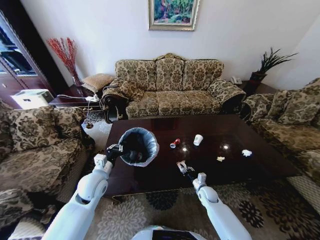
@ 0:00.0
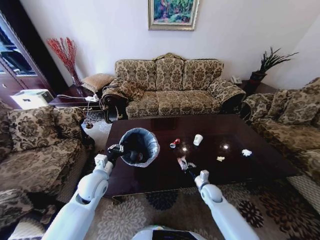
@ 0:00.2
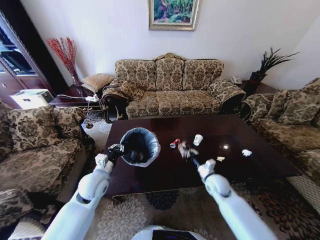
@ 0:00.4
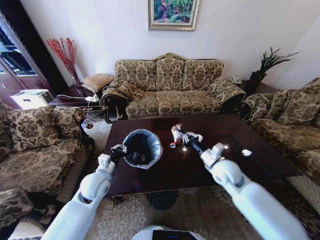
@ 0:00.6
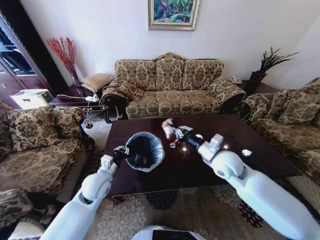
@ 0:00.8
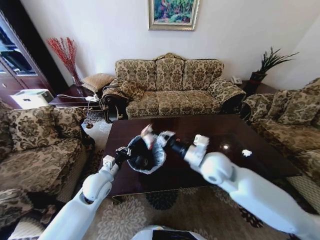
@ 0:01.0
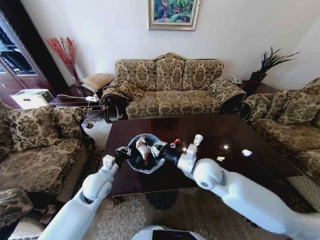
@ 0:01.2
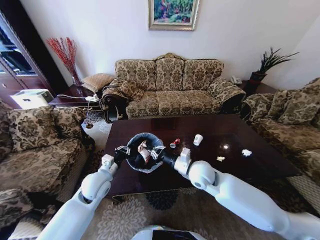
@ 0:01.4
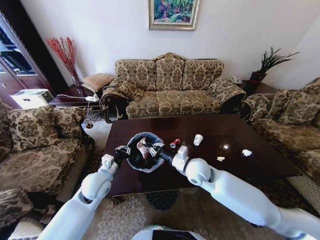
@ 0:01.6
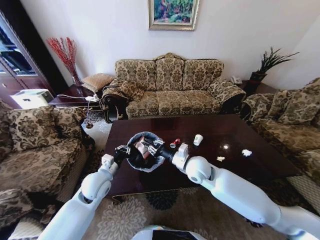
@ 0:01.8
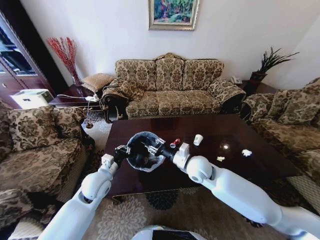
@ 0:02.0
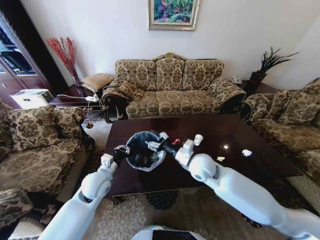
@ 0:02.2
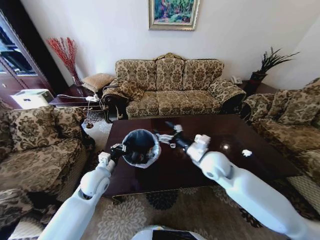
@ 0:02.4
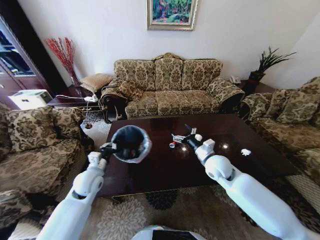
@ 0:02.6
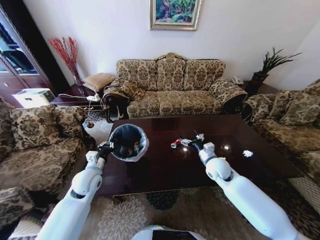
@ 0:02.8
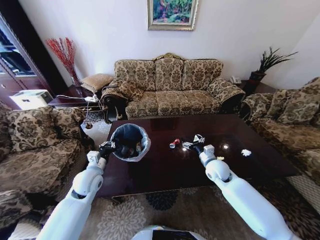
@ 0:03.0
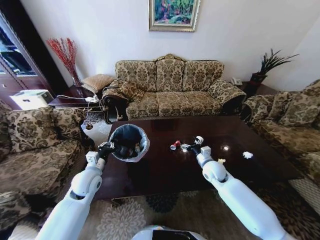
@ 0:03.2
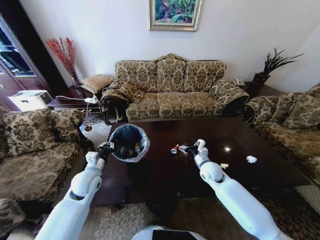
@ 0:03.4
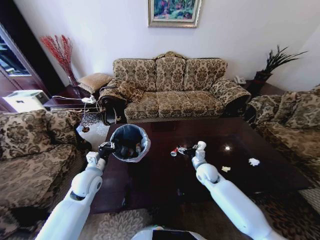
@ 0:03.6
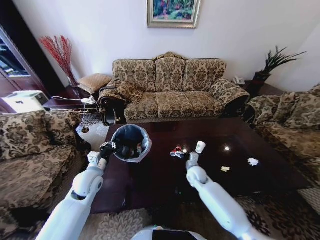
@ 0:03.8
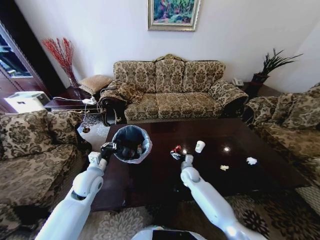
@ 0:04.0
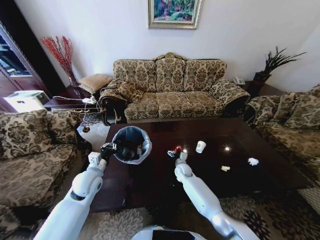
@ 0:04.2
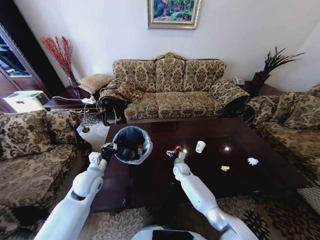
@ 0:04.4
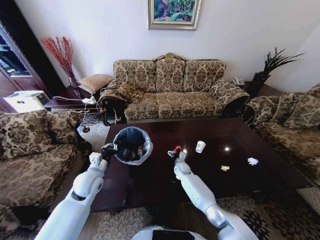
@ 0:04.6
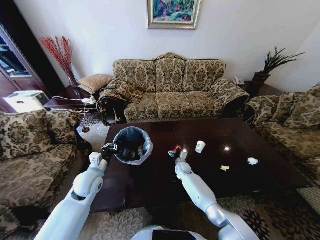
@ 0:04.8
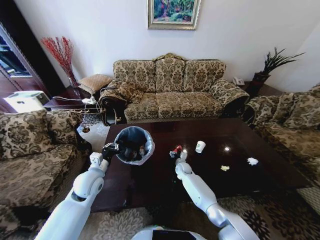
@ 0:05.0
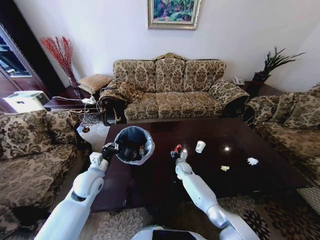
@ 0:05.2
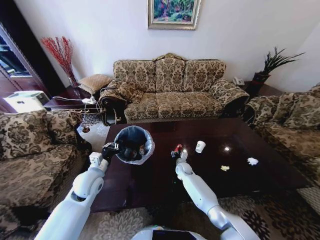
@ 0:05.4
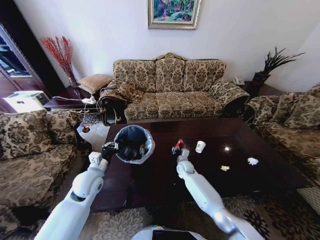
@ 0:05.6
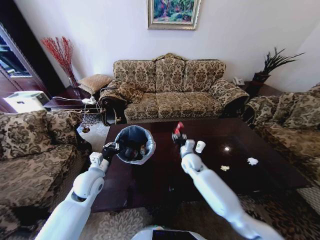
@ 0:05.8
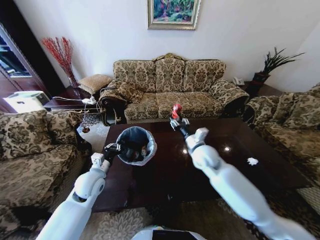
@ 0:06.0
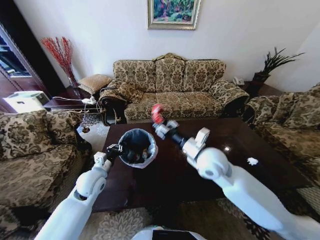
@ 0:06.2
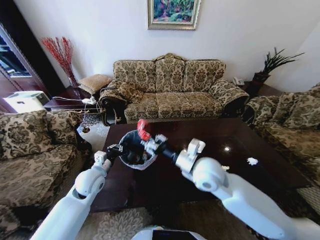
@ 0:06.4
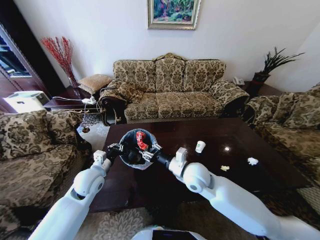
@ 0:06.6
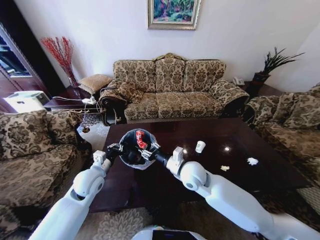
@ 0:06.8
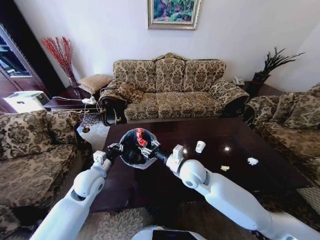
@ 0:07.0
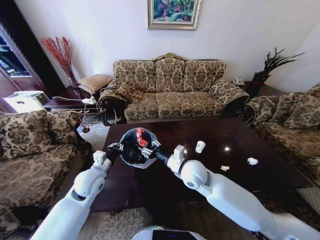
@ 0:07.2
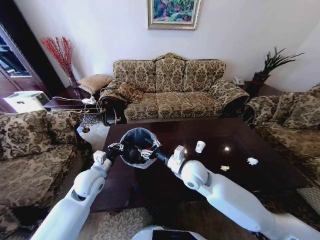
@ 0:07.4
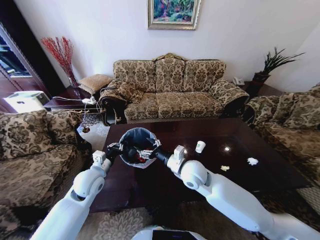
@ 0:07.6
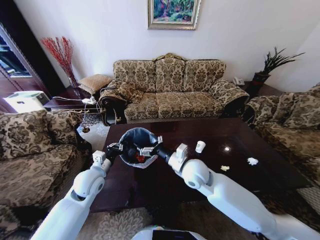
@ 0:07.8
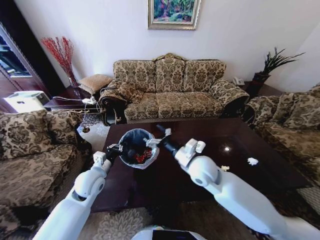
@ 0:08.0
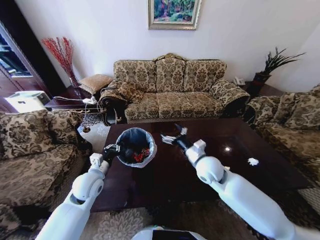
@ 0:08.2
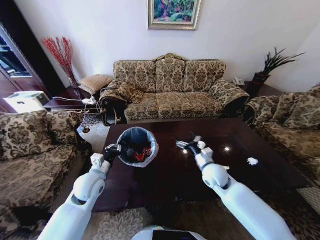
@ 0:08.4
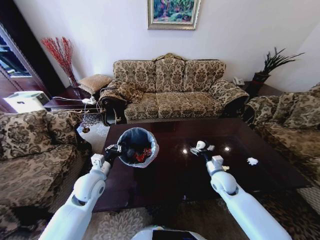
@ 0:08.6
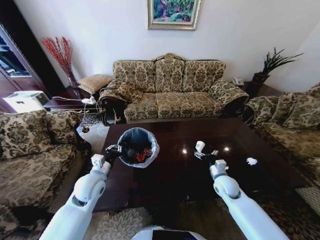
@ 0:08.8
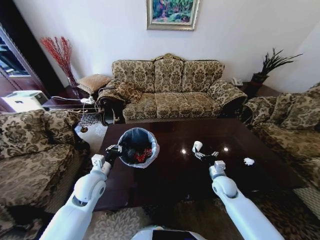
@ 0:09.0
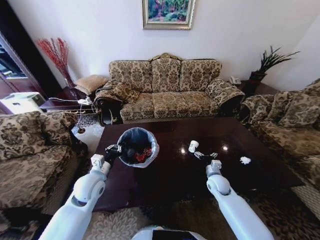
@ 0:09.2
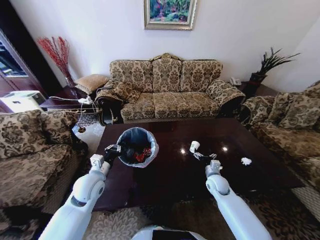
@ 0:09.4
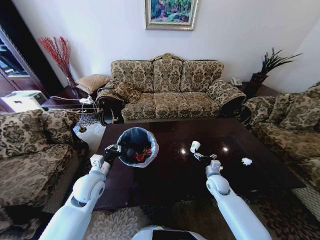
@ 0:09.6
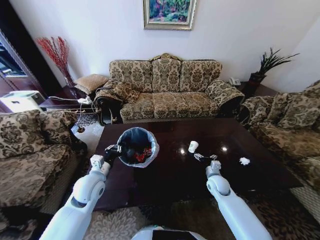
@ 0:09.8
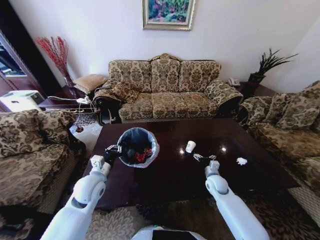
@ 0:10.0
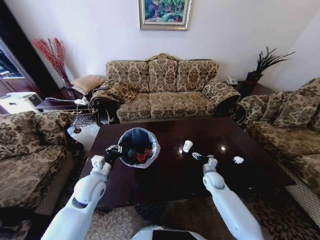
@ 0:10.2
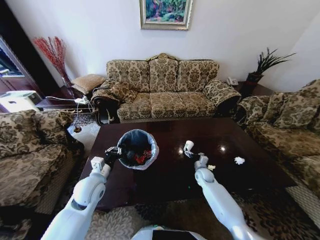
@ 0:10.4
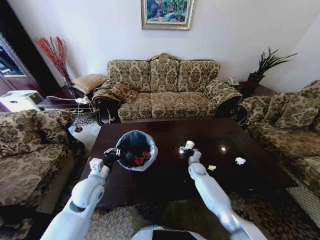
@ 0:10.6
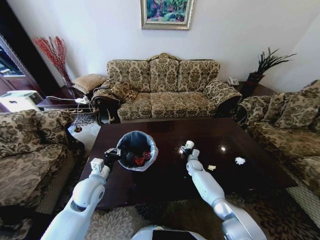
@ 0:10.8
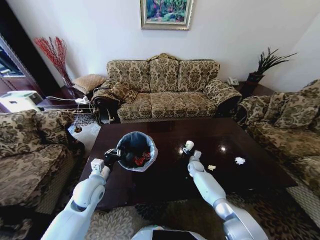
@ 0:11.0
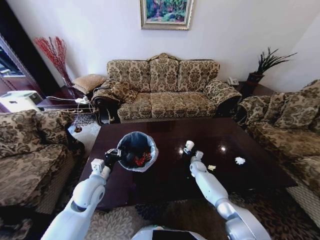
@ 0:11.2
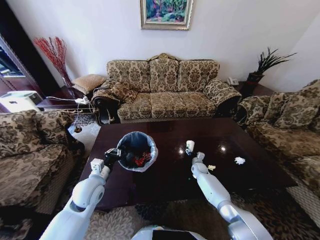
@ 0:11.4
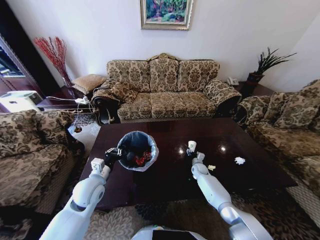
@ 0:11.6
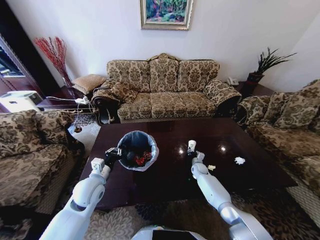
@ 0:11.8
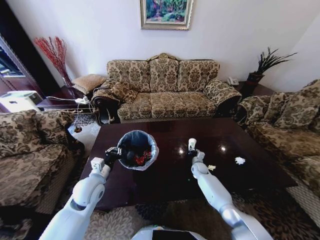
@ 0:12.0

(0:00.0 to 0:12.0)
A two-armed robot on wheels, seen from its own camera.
Task of the whole recording: Move to the front of the table and place the trash on the table into the trash bin.
0:00.0 - 0:01.6: The right gripper heads upward and to the left, covering approximately 30 cm.
0:01.6 - 0:03.0: The right gripper heads to the right and downward, covering roughly 15 cm, and opens its fingers.
0:03.0 - 0:04.4: The right gripper is displaced downward, to the left and forward by about 25 cm.
0:04.4 - 0:06.0: The right gripper moves upward, roughly 30 cm, and closes up.
0:06.0 - 0:07.6: The right gripper shifts about 10 cm to the left and backward, and opens up.
0:07.6 - 0:09.0: The right gripper travels to the right and downward by about 25 cm.
0:09.0 - 0:10.4: The right gripper is displaced forward and downward by roughly 10 cm.
0:10.4 - 0:12.0: The right gripper heads forward, covering about 5 cm, and closes up.

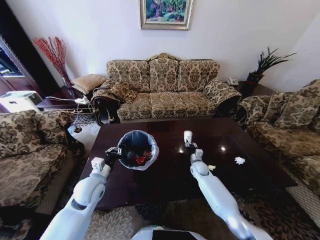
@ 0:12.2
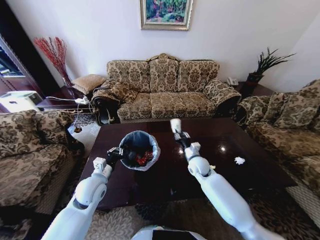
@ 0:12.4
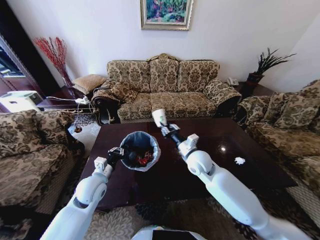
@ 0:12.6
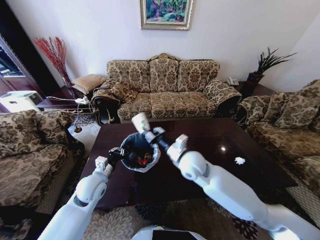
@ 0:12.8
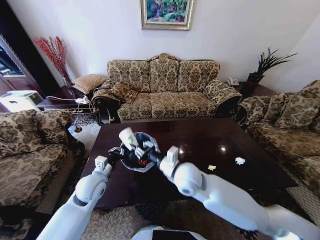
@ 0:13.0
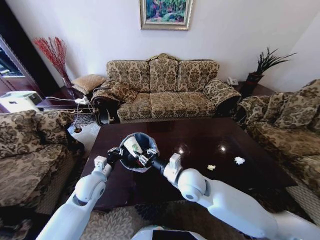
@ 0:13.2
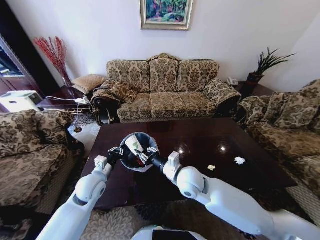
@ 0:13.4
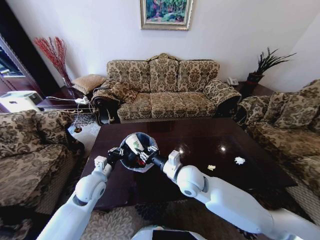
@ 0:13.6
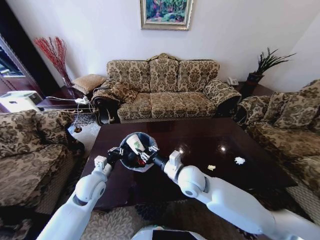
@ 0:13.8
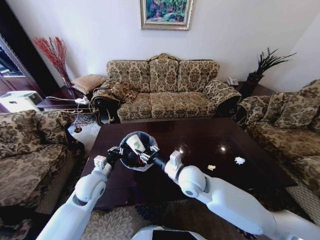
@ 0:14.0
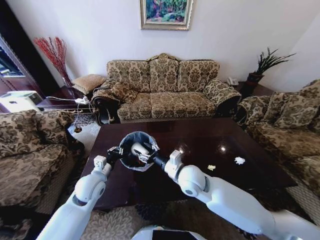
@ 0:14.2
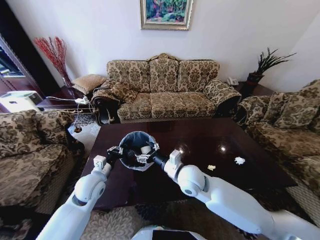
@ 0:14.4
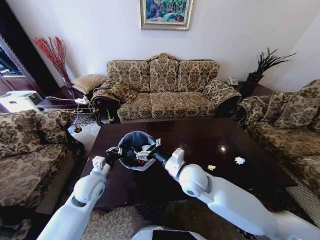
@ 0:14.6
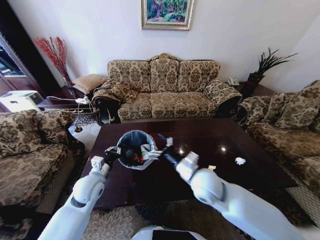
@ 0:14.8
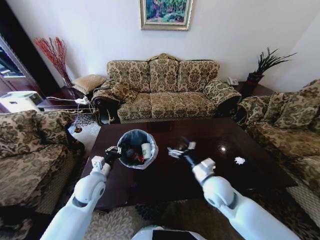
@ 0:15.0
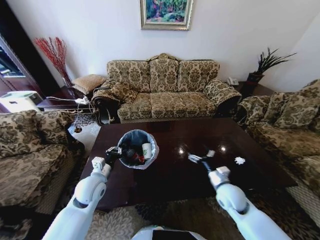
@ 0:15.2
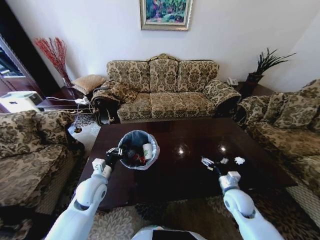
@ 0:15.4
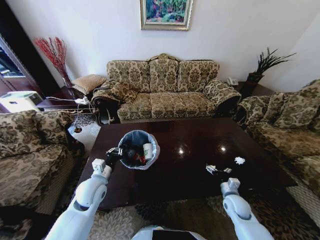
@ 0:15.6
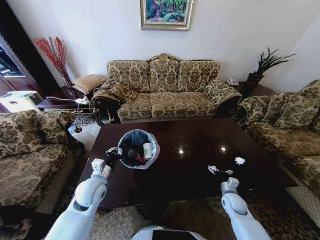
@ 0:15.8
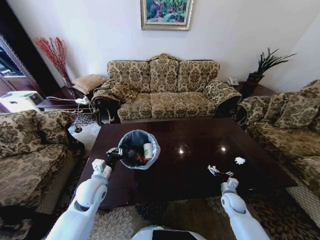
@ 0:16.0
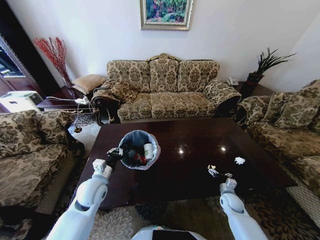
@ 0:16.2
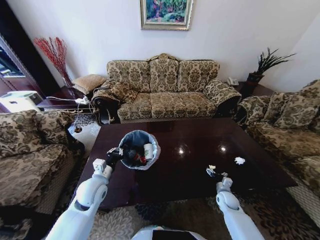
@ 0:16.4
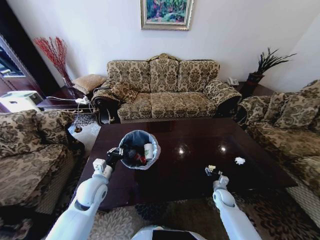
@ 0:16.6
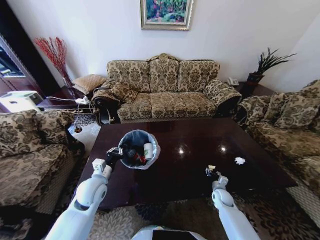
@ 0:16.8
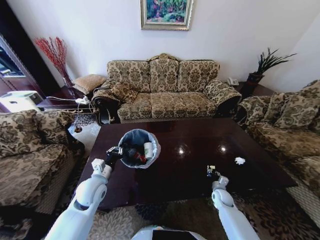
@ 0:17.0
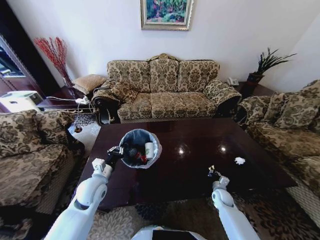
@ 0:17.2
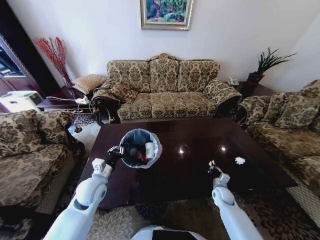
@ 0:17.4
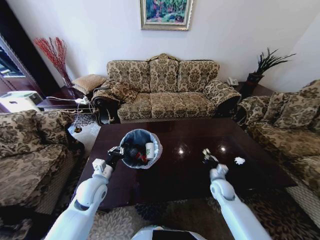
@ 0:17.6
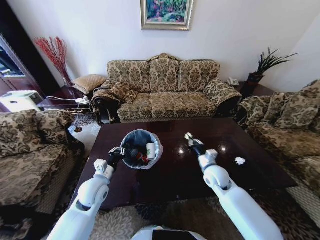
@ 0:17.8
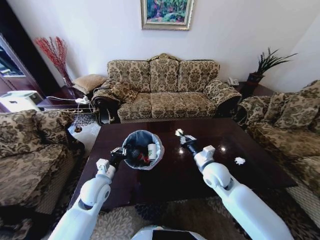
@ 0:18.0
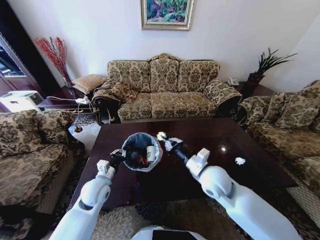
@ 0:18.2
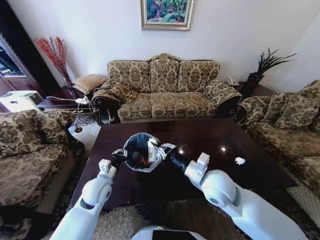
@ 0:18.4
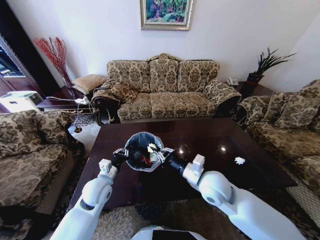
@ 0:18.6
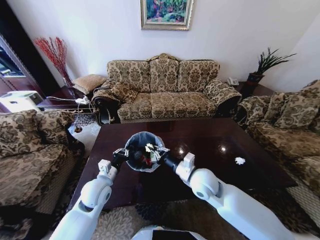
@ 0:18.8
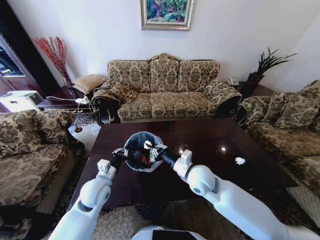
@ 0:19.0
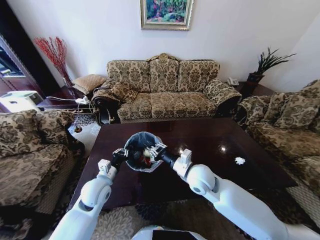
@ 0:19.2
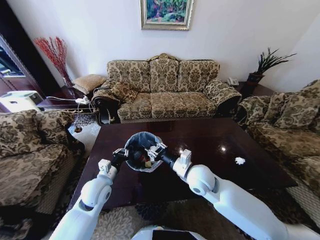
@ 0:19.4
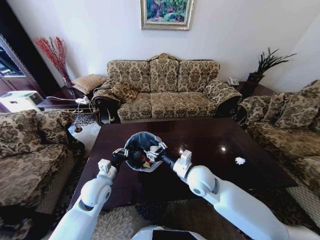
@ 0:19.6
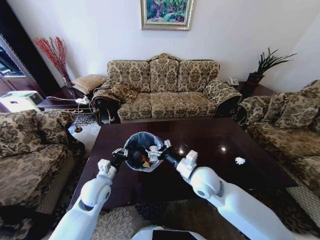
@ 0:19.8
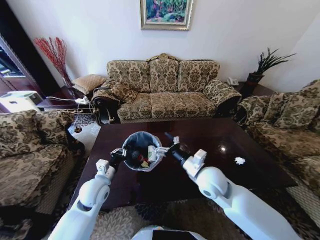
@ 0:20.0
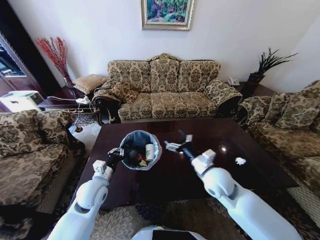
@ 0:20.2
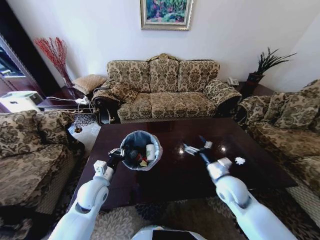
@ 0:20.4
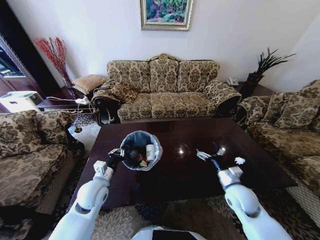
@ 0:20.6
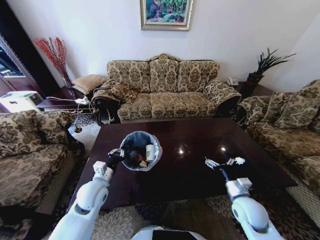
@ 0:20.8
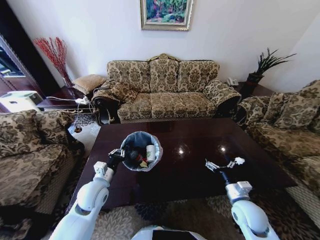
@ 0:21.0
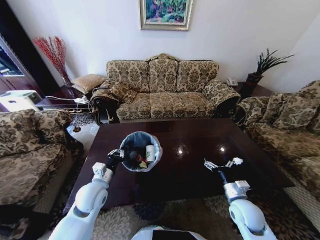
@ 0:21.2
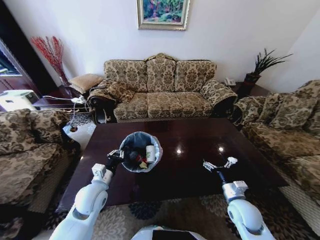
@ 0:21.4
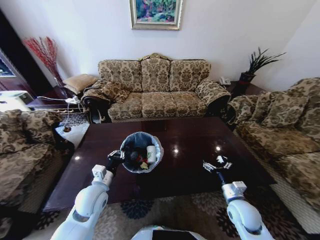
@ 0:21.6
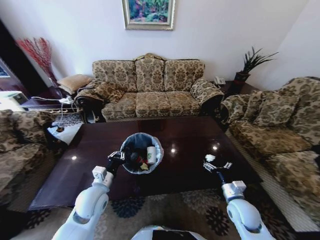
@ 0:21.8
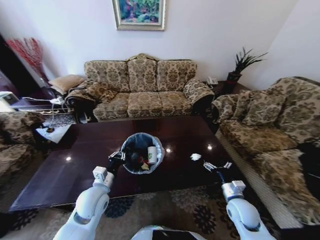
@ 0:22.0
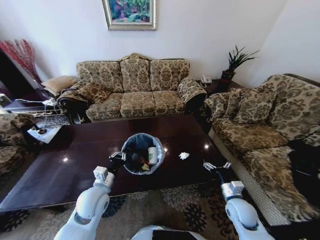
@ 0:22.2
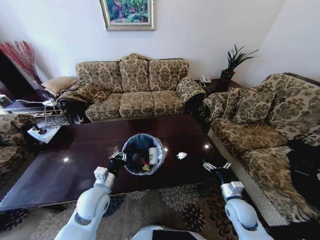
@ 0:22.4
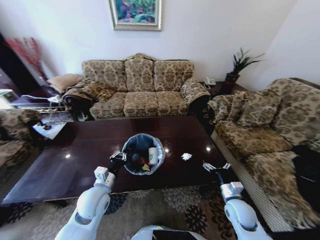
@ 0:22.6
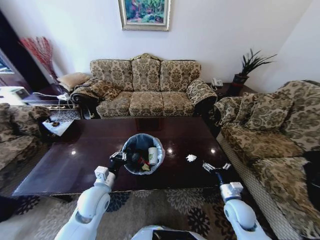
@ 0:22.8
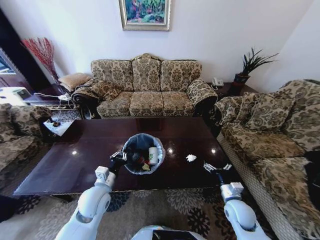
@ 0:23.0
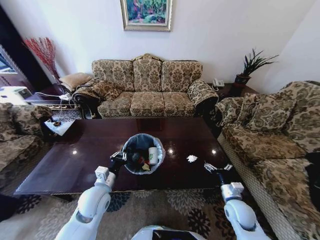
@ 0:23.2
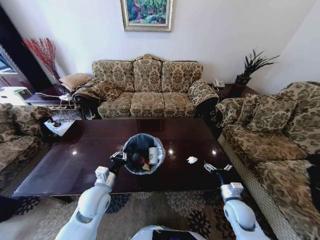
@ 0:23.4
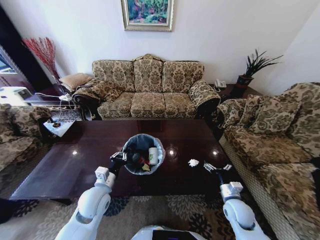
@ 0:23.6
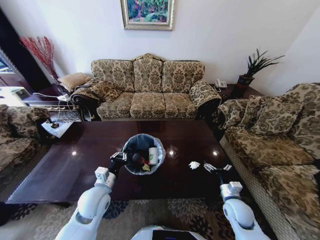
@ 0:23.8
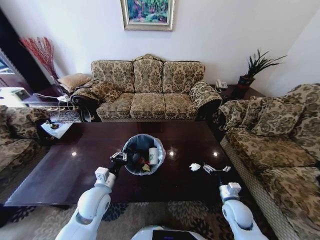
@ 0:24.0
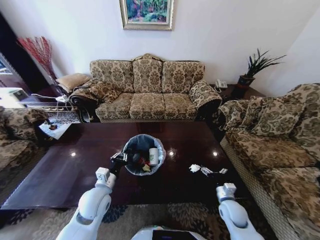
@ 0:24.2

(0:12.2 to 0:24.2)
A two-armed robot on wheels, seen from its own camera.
Task of the whole recording: Move to the front of the table and place the trash on the table into the trash bin.
0:12.2 - 0:13.8: The right gripper is displaced upward, backward and to the left by some 30 cm.
0:13.8 - 0:15.2: The right gripper is displaced to the right and downward by roughly 20 cm, and opens its fingers.
0:15.2 - 0:16.6: The right gripper shifts about 20 cm downward.
0:16.6 - 0:18.2: The right gripper travels upward and to the left by some 35 cm, and closes.
0:18.2 - 0:19.8: The right gripper opens up.
0:19.8 - 0:21.2: The right gripper travels to the right, downward and backward by roughly 20 cm.
